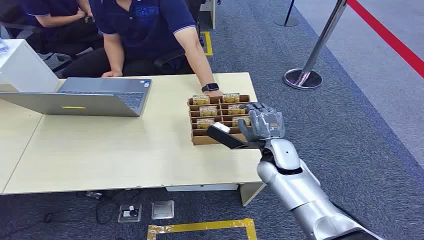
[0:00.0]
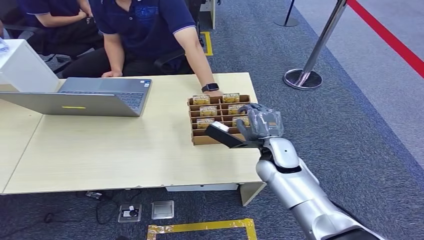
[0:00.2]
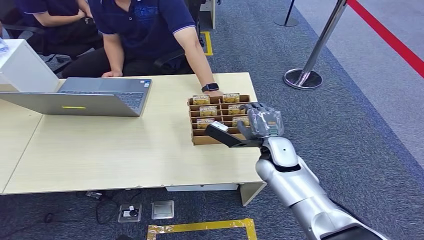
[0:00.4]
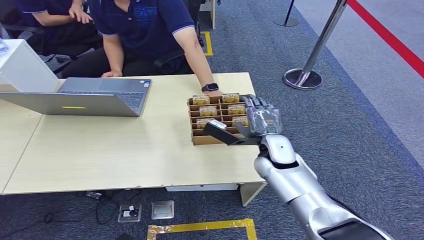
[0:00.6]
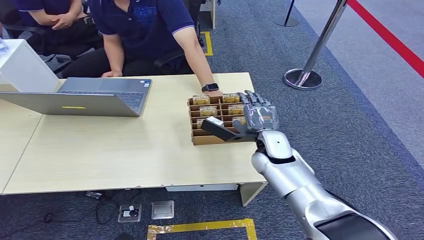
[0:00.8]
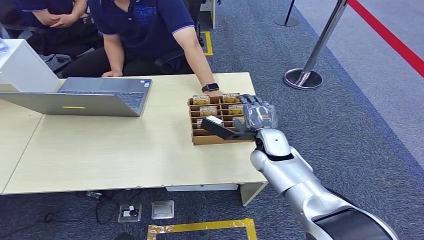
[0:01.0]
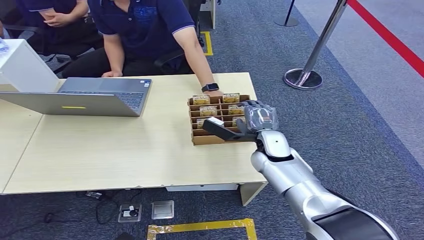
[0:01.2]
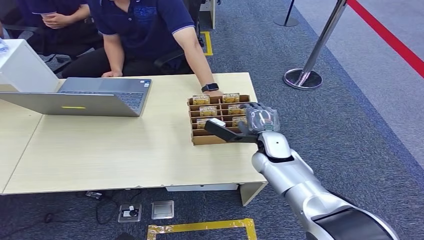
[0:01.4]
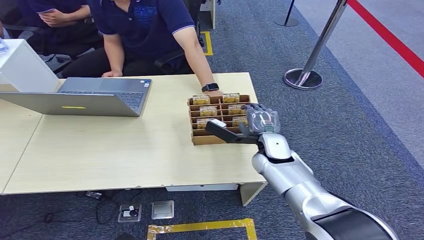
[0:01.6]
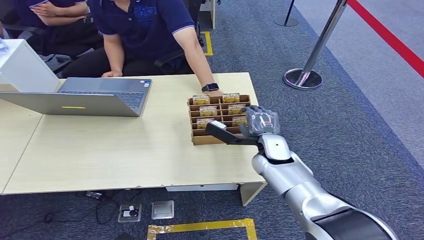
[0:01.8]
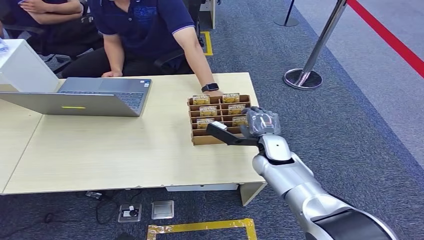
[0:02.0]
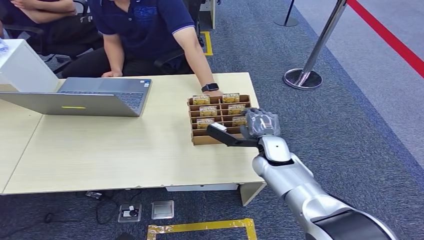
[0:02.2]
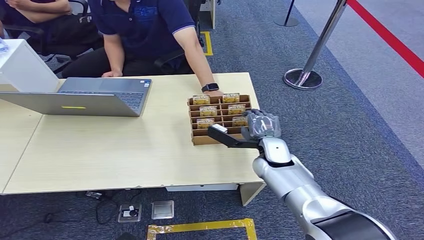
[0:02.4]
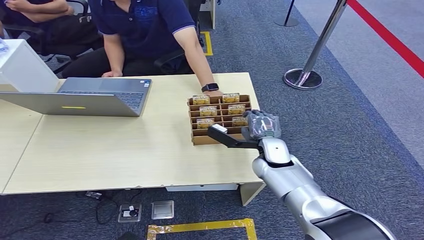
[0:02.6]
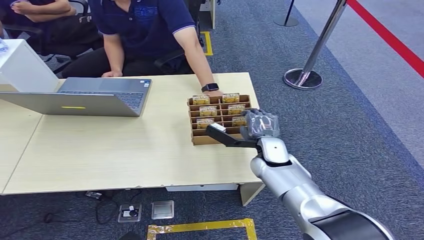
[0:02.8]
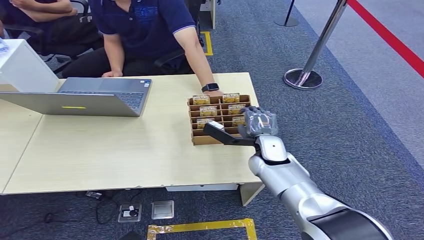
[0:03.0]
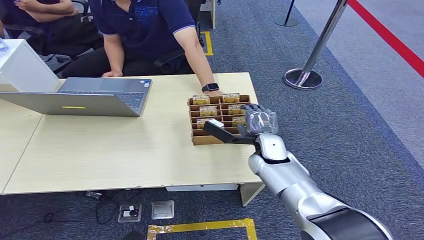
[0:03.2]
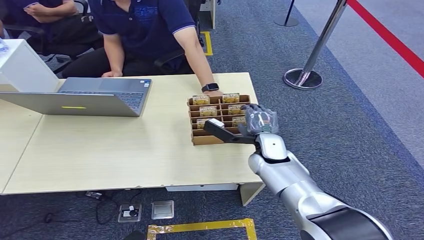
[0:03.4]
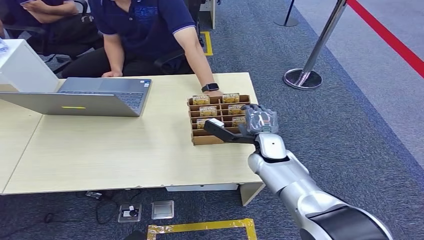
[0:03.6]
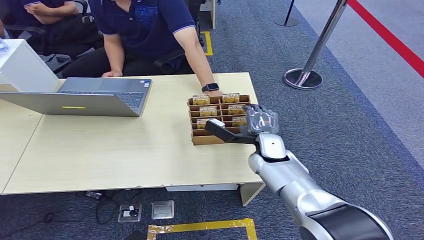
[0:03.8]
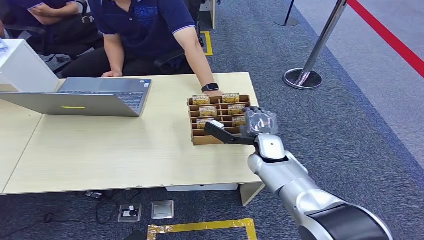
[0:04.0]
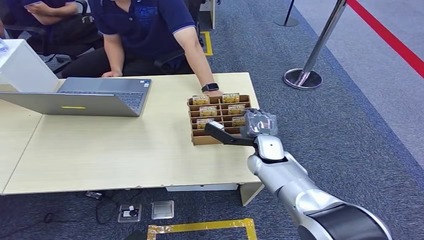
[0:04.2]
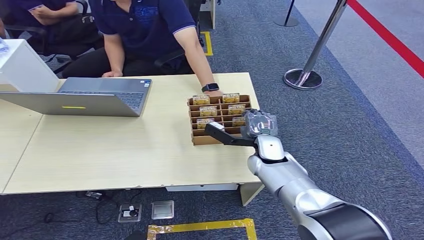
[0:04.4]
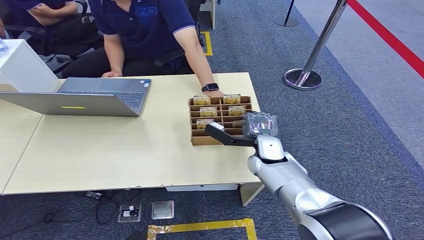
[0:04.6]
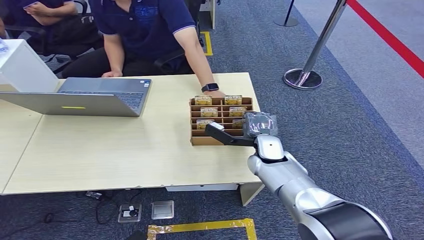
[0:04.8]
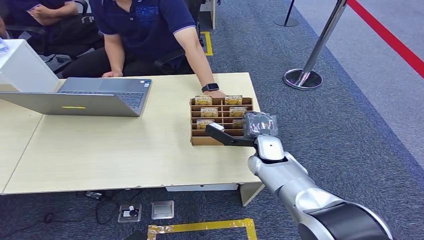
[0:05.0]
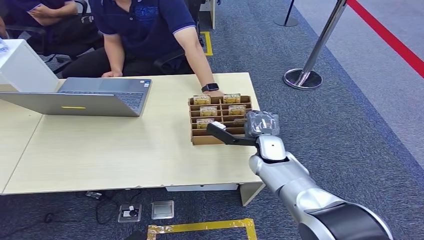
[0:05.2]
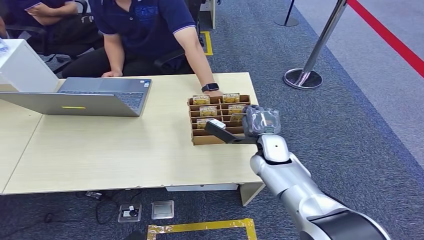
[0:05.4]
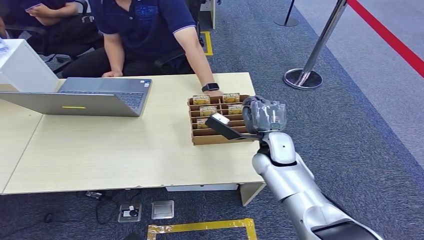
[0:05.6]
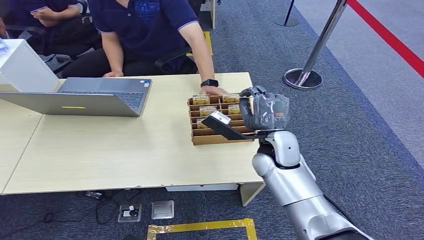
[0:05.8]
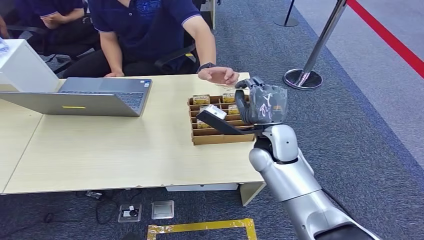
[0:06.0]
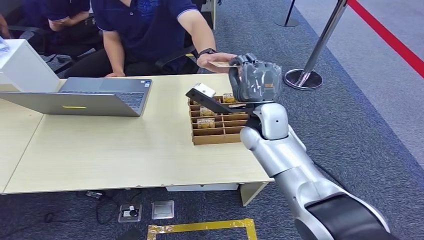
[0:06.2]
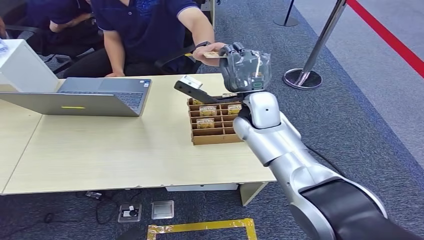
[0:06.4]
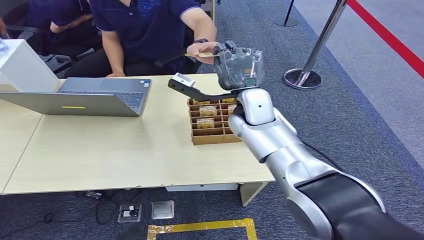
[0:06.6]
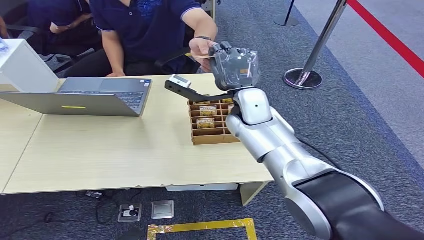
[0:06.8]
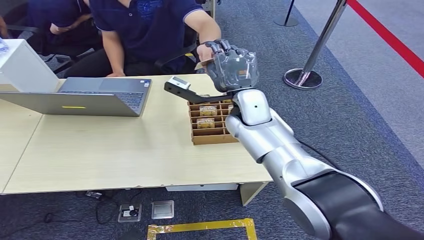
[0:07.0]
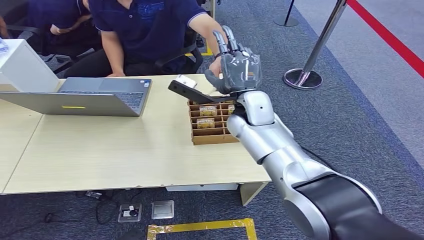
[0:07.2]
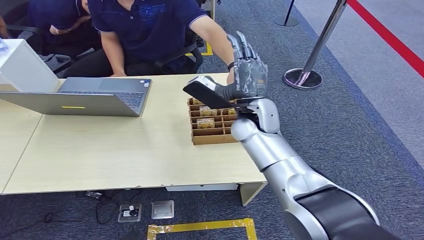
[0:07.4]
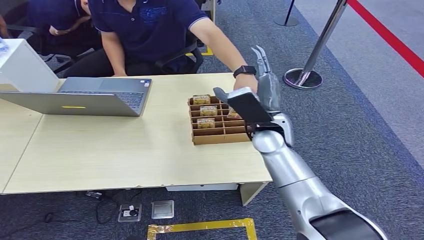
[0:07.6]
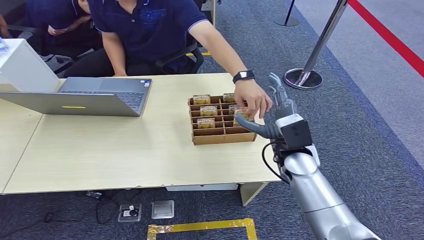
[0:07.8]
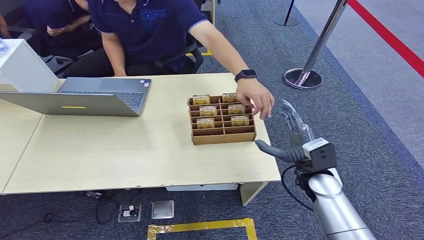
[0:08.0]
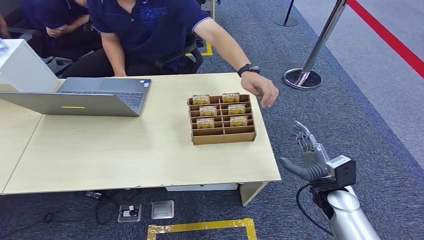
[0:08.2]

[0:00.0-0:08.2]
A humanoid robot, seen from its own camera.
Step, 0:00.0 to 0:06.0: Pick up the key card from the card box.
Step, 0:06.2 to 0:08.2: Hand the key card to the target.
0:01.6 to 0:05.0: Both hands stay put.
0:05.0 to 0:06.6: The right hand is displaced upward by about 15 cm.
0:06.6 to 0:08.2: The left hand changes place by about 5 cm. The right hand travels downward, to the right and backward by some 35 cm.
